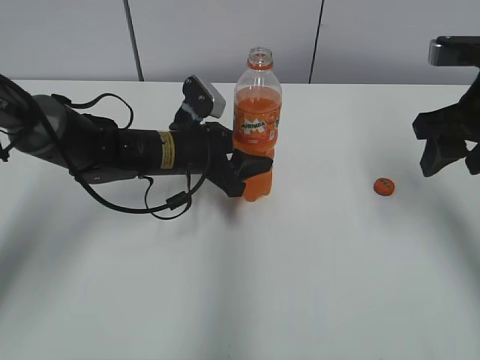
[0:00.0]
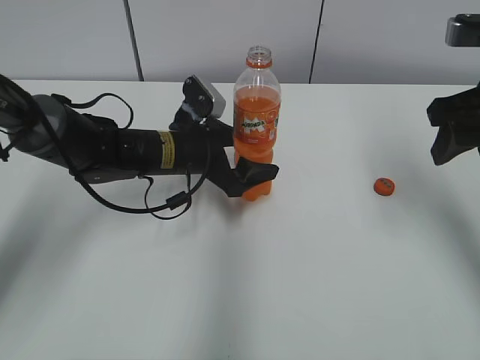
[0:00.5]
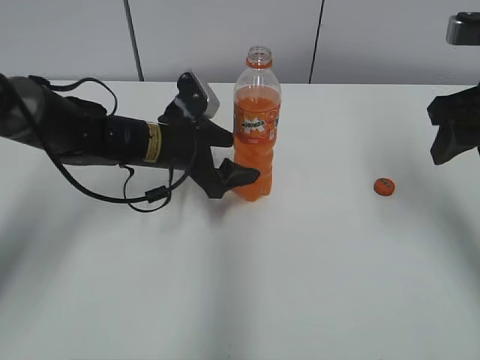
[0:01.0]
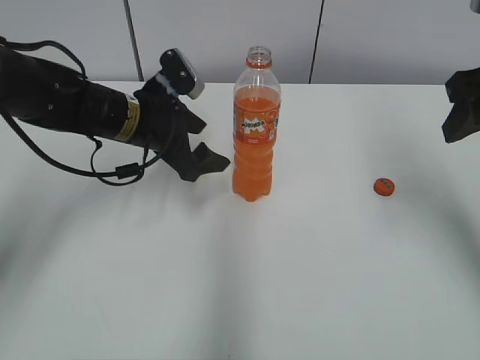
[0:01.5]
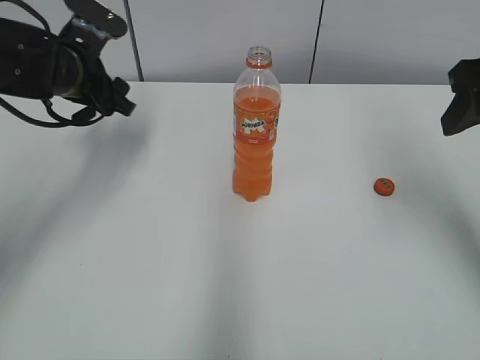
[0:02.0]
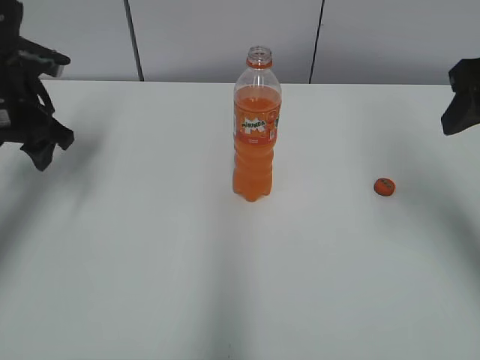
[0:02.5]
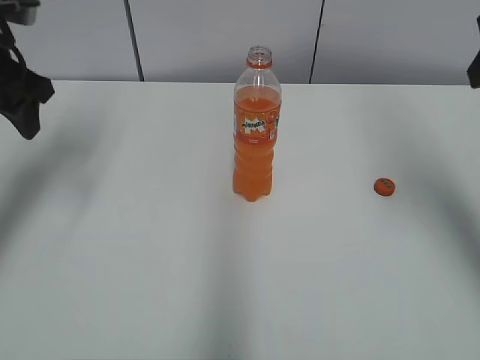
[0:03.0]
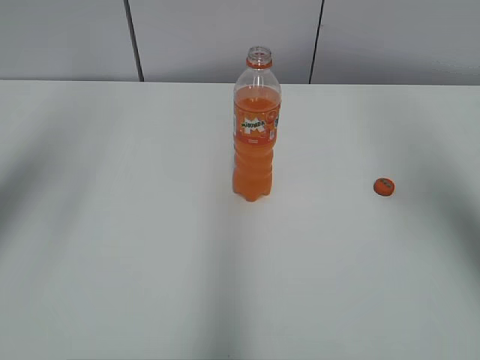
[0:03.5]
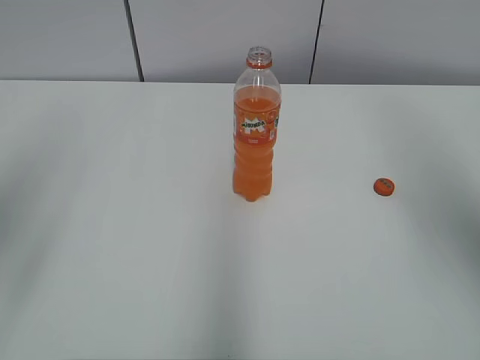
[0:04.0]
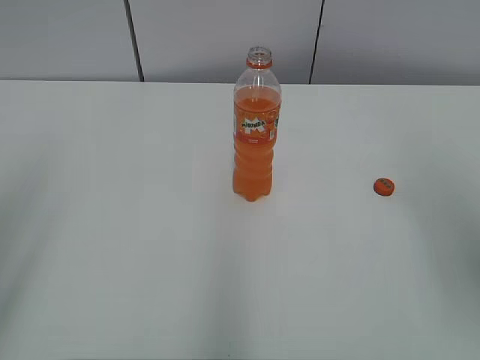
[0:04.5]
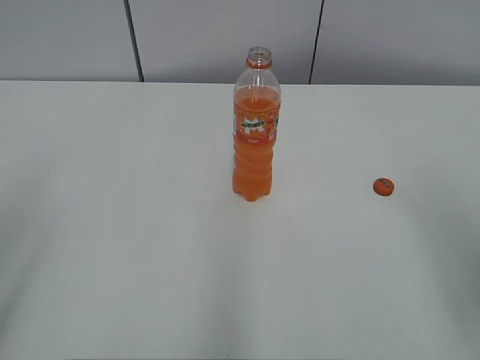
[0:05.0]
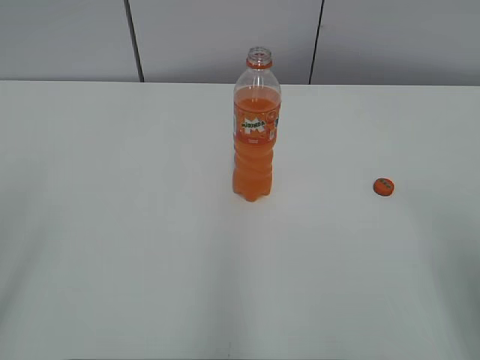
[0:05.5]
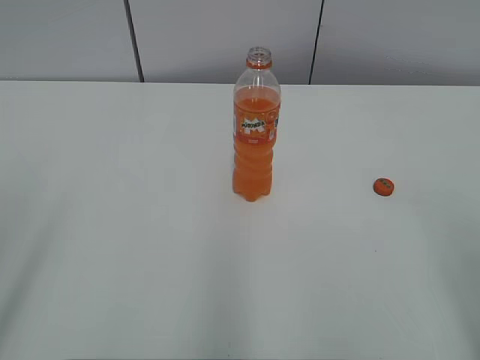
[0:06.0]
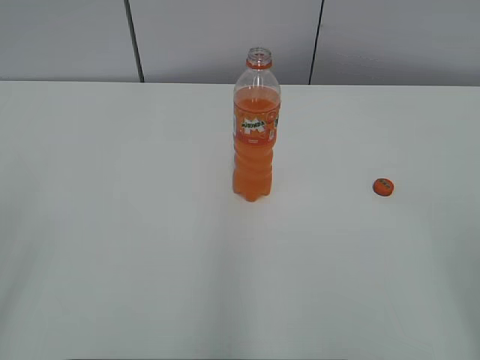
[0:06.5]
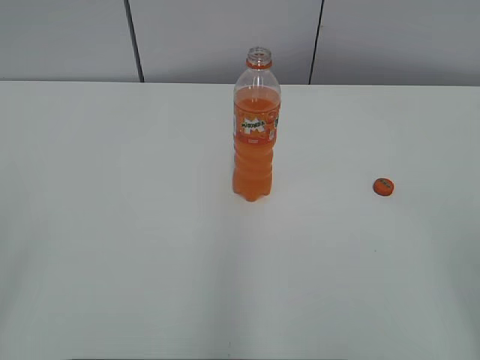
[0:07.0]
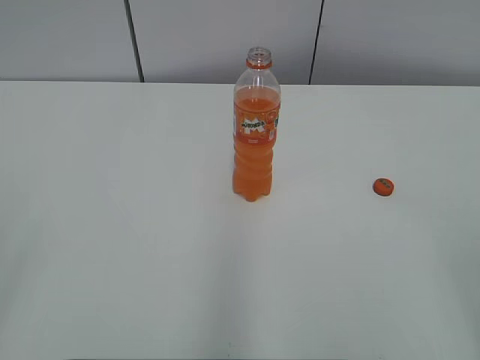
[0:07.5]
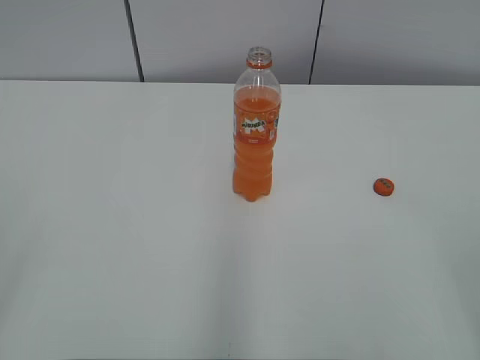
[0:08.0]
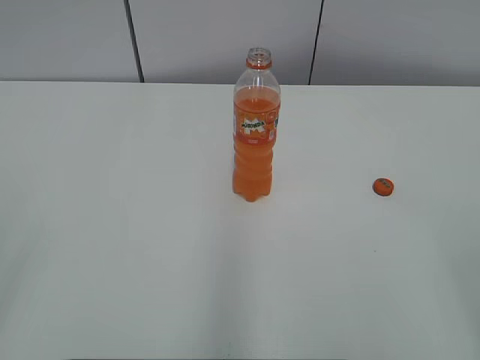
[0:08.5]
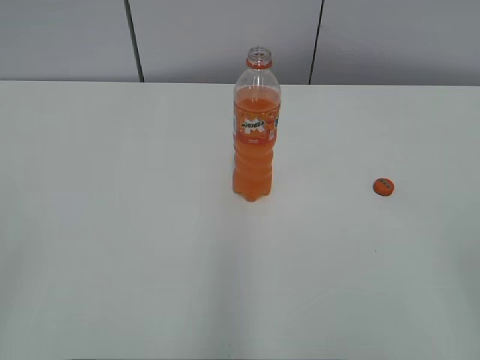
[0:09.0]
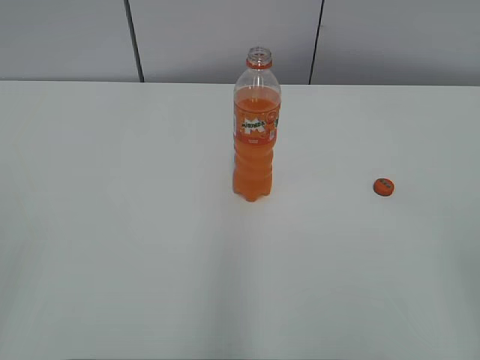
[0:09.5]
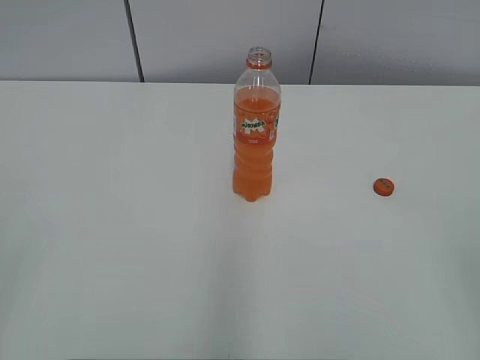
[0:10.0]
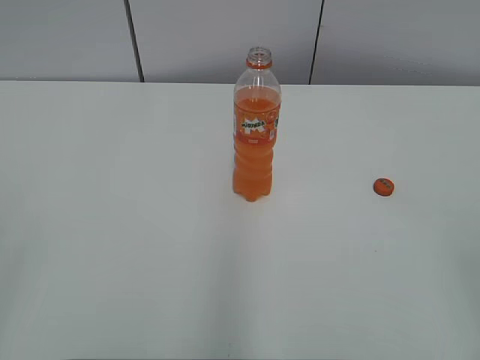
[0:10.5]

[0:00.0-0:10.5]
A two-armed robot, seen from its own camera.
0:00.0 to 0:02.0: The right gripper is displaced upward by some 5 cm. Meanwhile the left gripper heads to the left and upward, covering about 15 cm, and opens its fingers.
0:02.0 to 0:04.0: The right gripper heads upward and backward, covering some 10 cm. The left gripper heads backward and upward, covering roughly 30 cm.

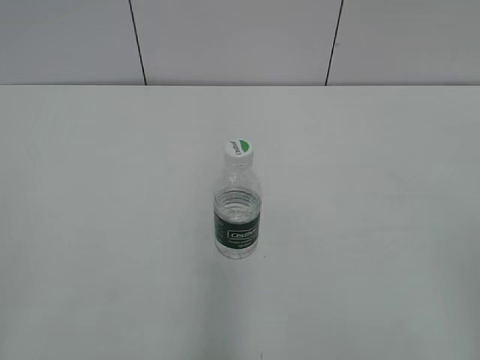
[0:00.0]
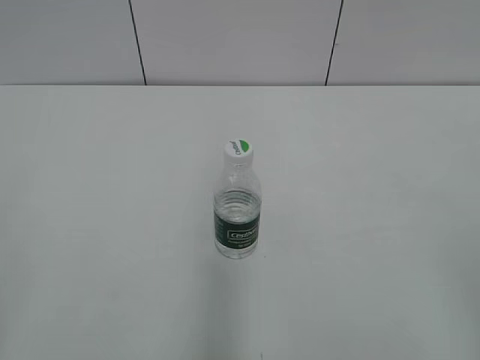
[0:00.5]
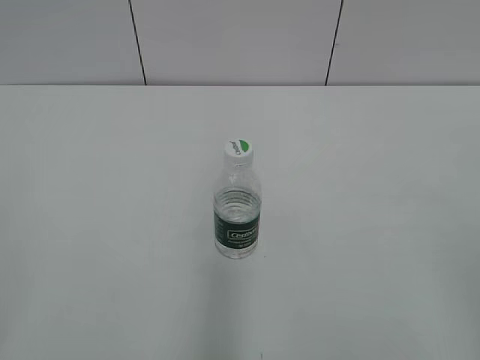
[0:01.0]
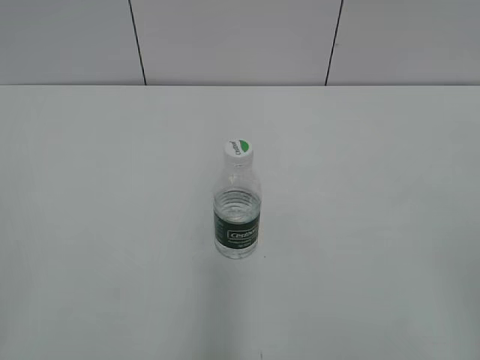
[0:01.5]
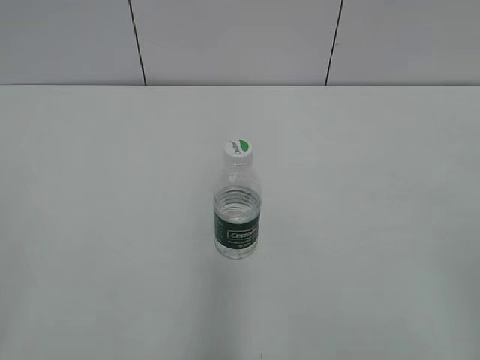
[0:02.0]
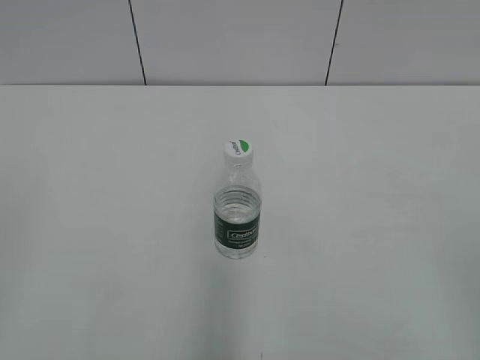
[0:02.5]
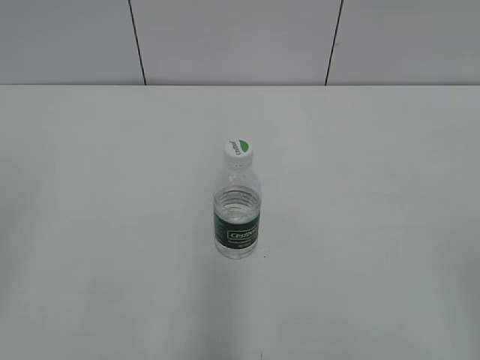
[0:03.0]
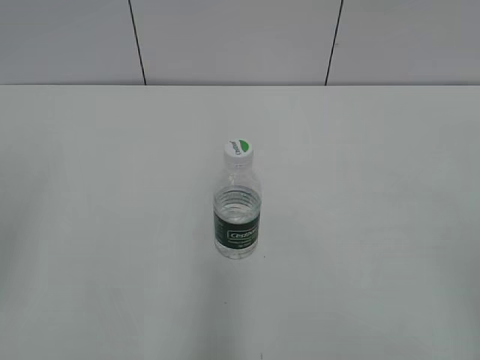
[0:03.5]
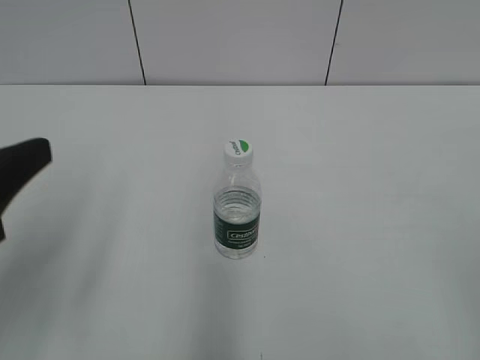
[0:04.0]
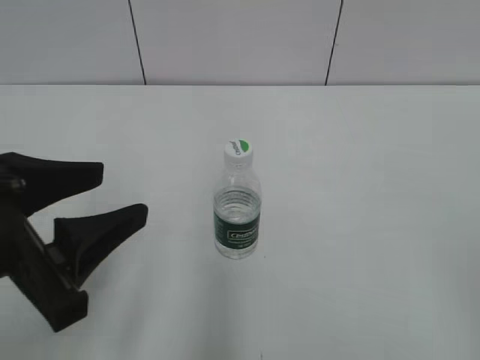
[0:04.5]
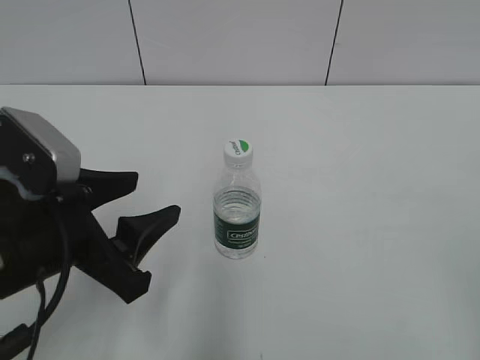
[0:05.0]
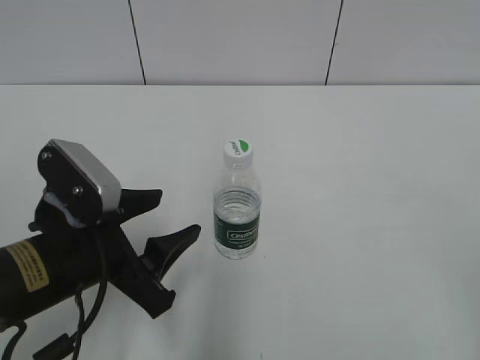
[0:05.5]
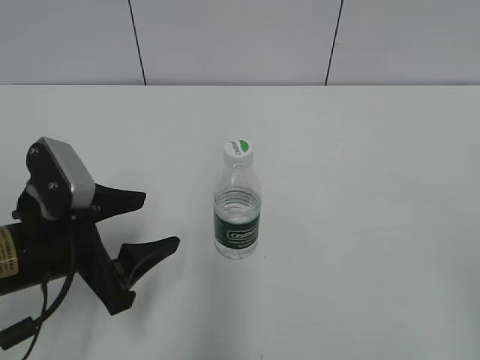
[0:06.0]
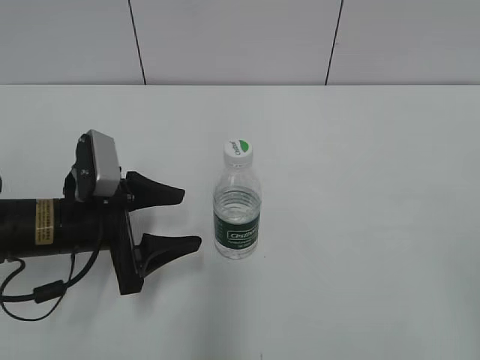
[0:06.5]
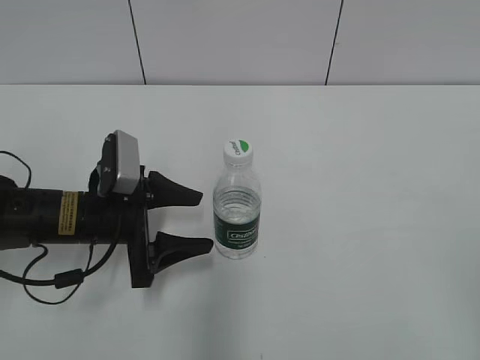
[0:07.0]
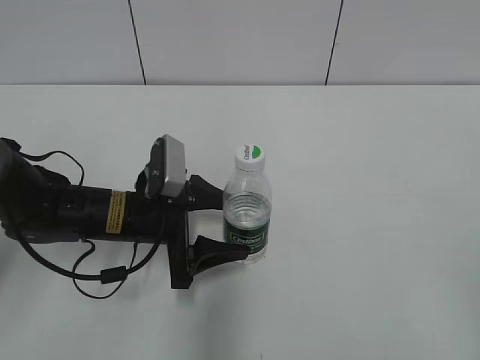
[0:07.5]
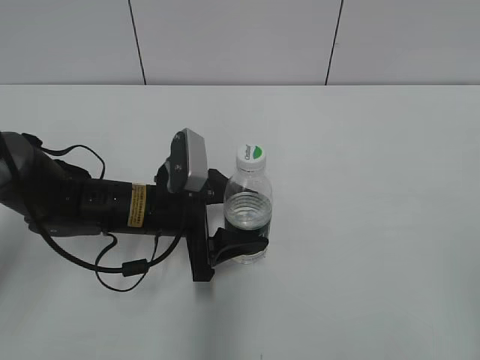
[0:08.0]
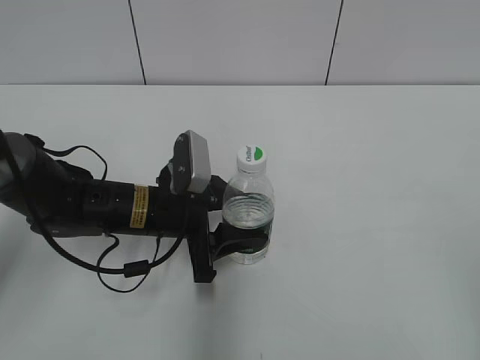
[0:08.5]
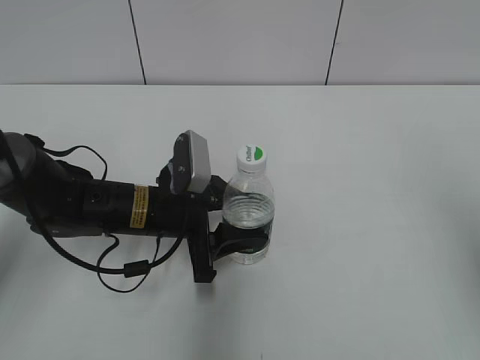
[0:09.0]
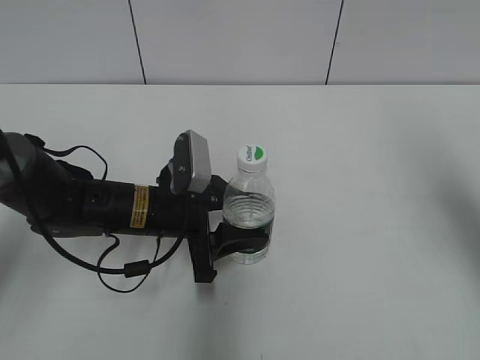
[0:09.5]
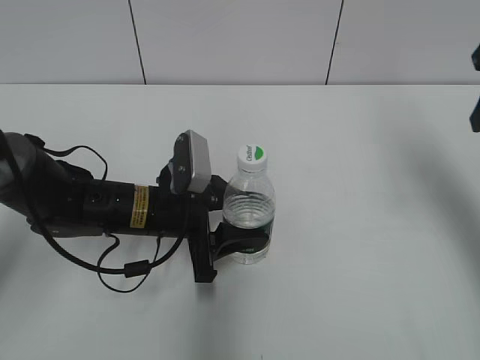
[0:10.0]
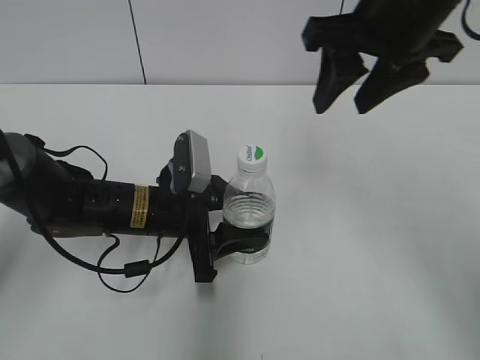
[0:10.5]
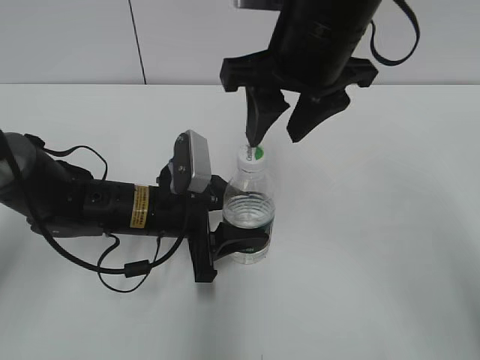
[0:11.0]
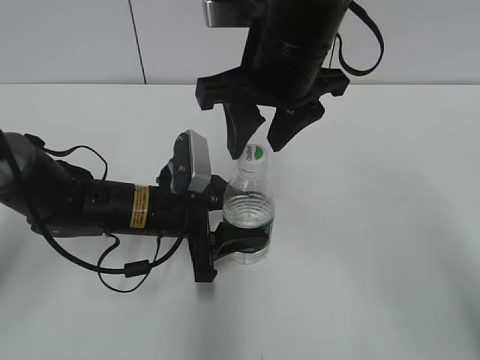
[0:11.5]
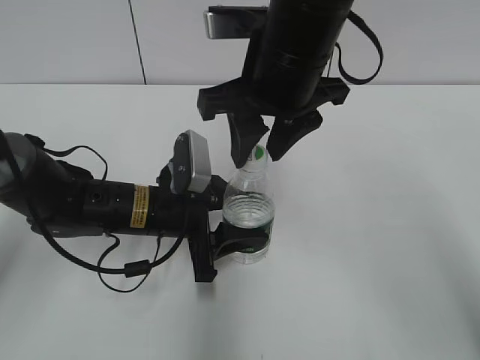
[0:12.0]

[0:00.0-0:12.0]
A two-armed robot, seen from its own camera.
Step, 0:00.0 to 0:08.5: Grasp the bottle and move it to the center of the table with the left gripper.
0:02.0 to 0:04.0: The left gripper moves forward and to the right, roughly 15 cm.
0:04.0 to 0:06.0: The left gripper goes roughly 15 cm downward, forward and to the right, and opens its fingers.
0:06.0 to 0:08.0: The left gripper travels forward and to the right by roughly 15 cm.
0:08.0 to 0:10.0: The left gripper closes up; the right gripper is displaced forward by some 30 cm, and closes its fingers.
0:10.0 to 0:12.0: The right gripper travels to the left by about 25 cm.

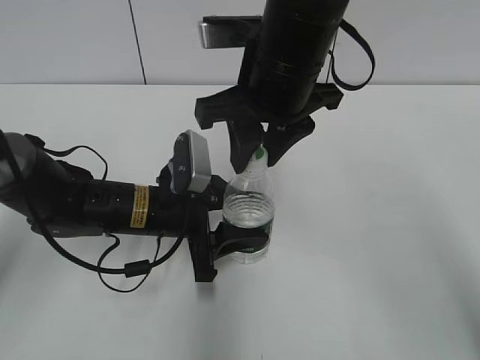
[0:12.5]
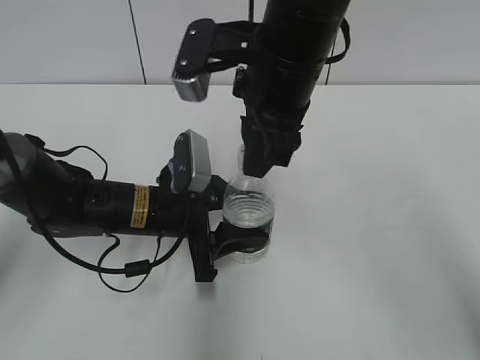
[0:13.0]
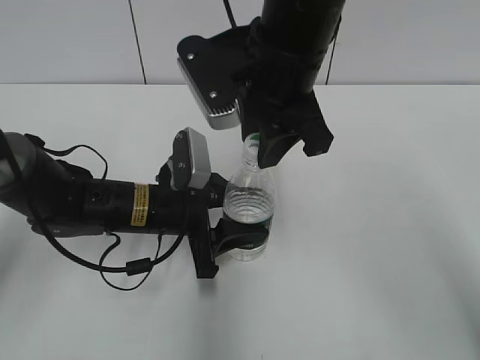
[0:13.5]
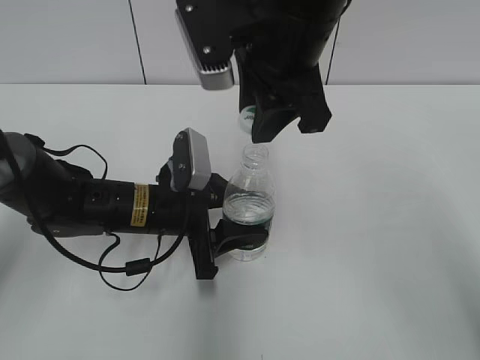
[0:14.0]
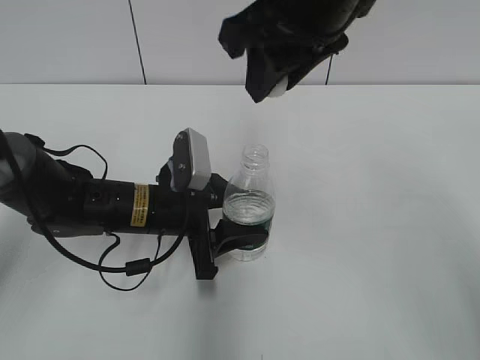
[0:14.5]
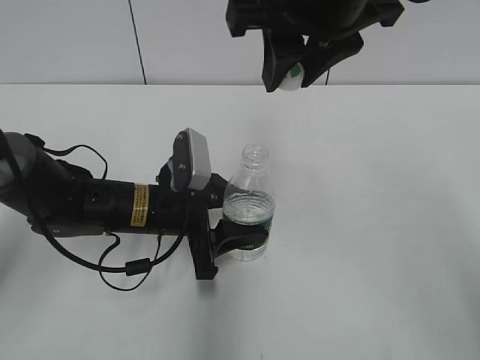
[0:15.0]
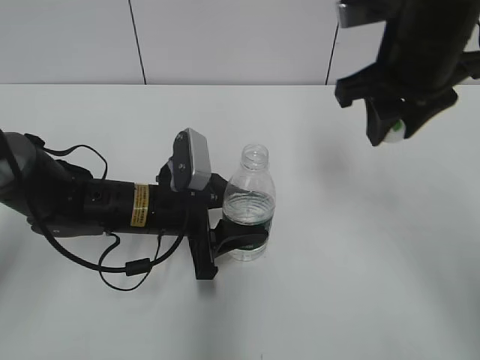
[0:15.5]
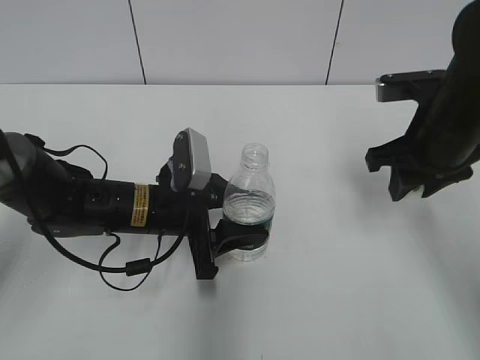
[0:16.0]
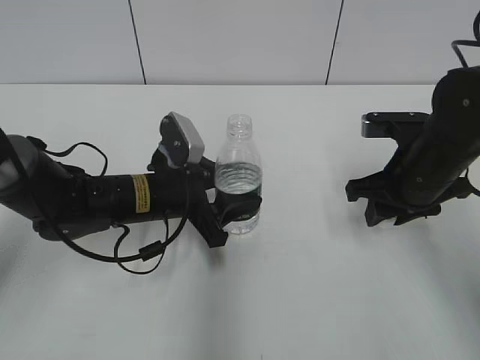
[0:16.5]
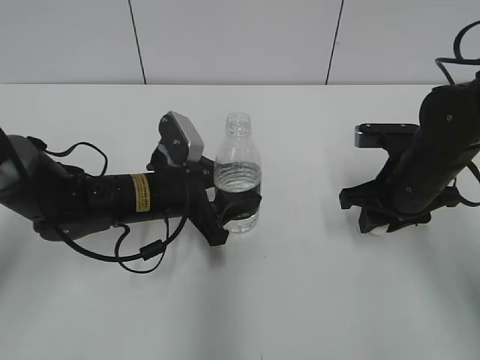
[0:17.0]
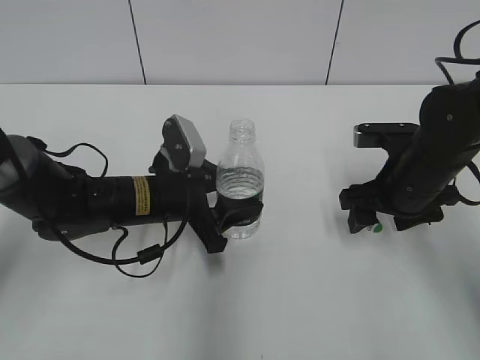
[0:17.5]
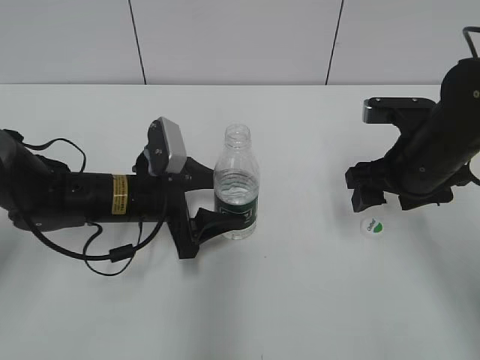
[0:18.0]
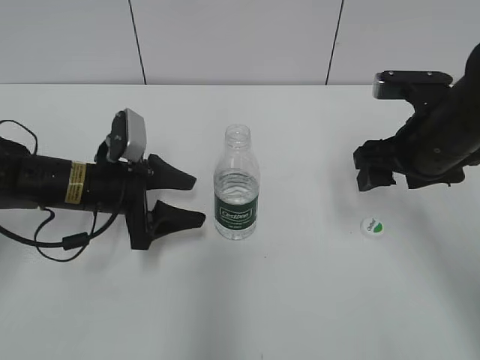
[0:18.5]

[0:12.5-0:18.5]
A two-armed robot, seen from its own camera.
Step, 0:14.5 to 0:17.5: Place the bottle cap on the table with the right gripper.
0:12.5 to 0:14.5: The right gripper shifts some 10 cm upward.
0:14.5 to 0:16.5: The right gripper travels downward and to the right by approximately 25 cm.
0:16.5 to 0:18.5: The right gripper opens up; the left gripper is displaced to the left by approximately 10 cm, and opens up.
